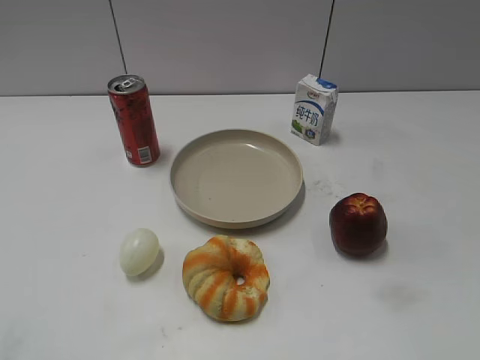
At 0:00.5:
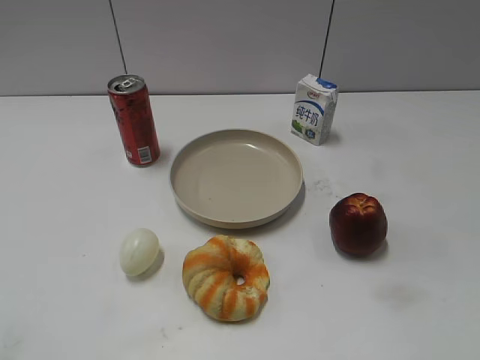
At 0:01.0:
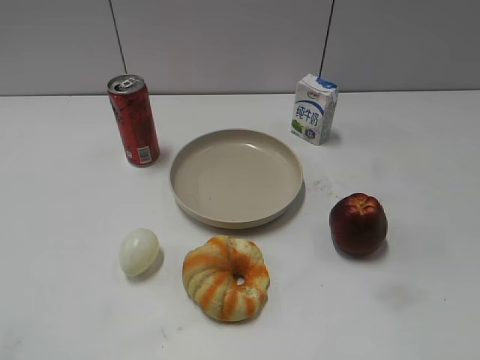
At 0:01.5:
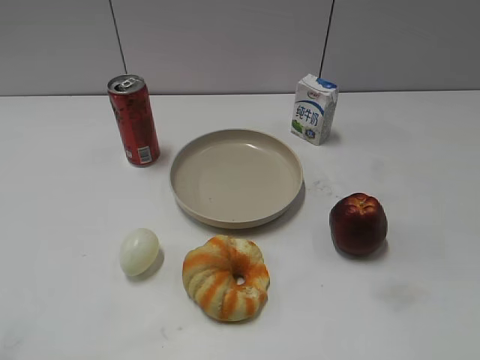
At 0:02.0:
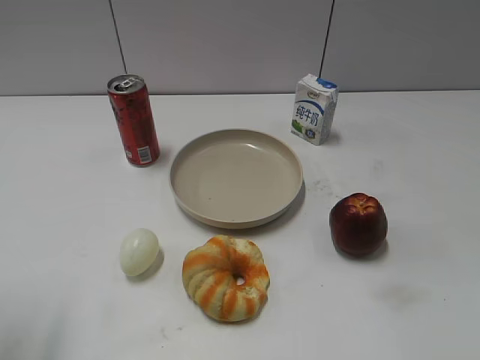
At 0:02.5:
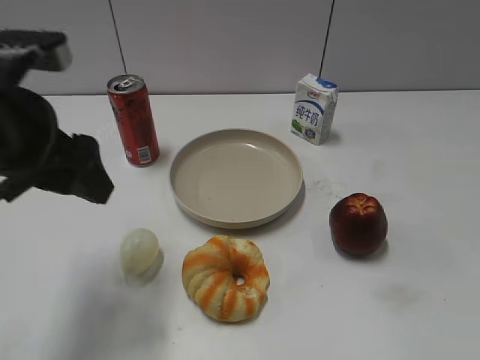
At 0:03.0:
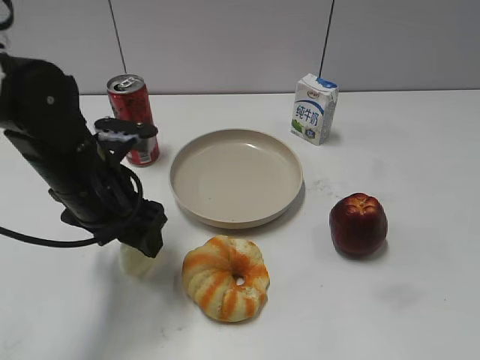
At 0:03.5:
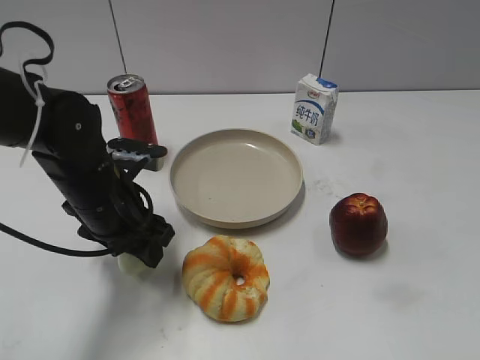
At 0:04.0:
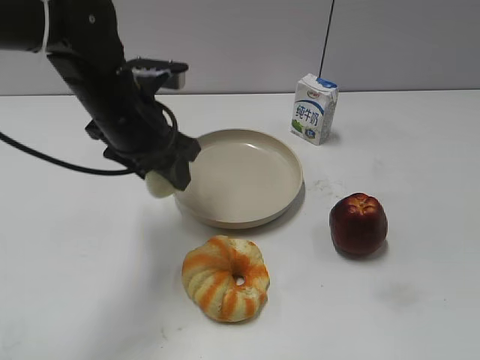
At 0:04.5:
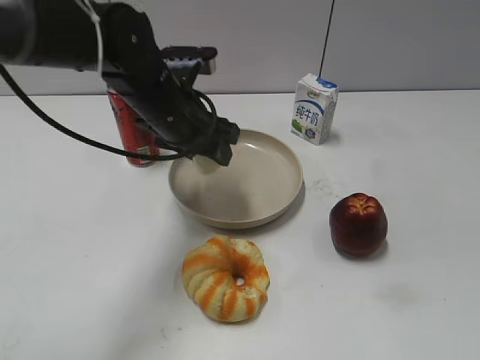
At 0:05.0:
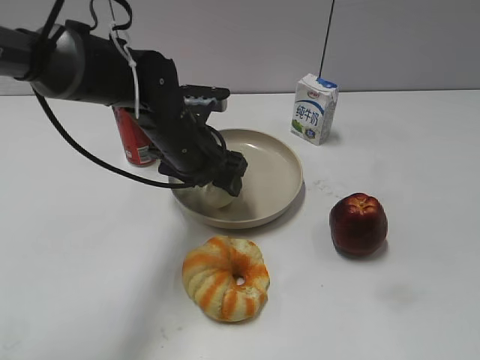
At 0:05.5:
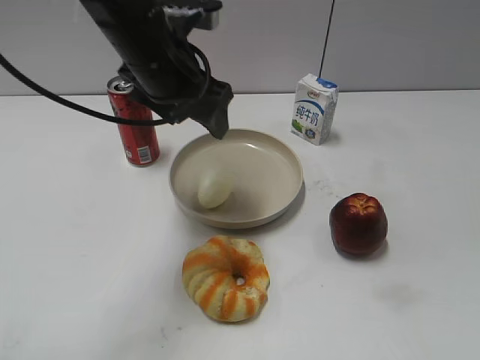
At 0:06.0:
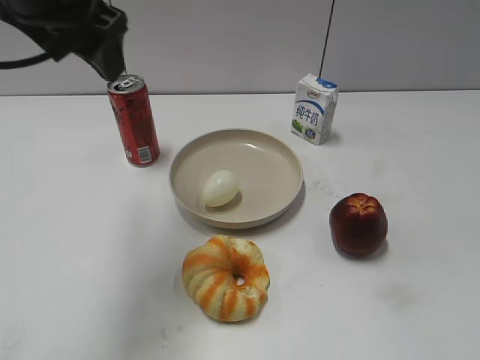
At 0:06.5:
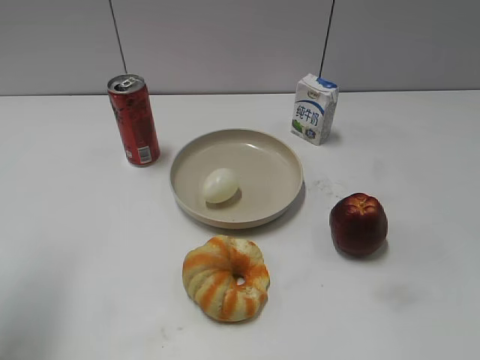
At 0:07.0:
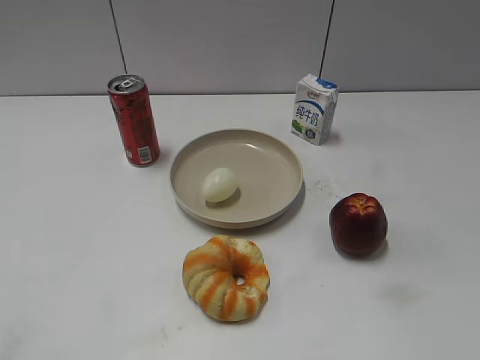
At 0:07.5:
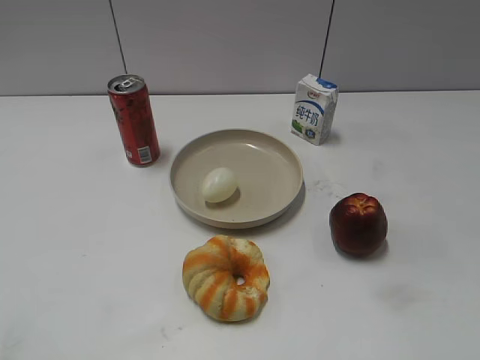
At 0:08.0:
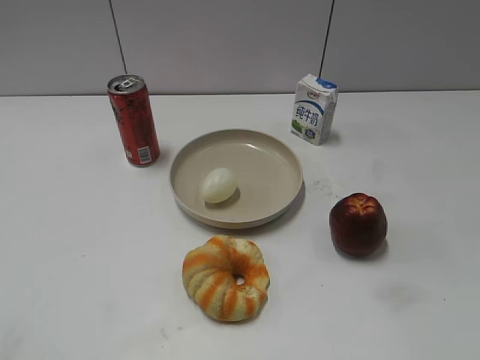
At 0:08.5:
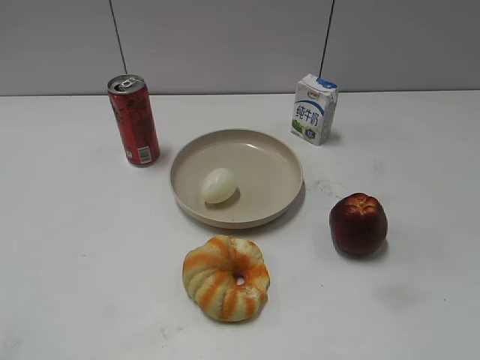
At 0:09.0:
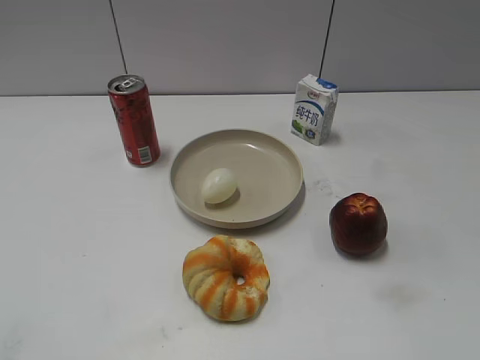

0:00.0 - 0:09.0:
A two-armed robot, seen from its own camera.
Step, 0:01.5 - 0:03.5: Grasp the egg with left gripper.
Step, 0:04.0 - 0:05.0: Place the egg on the plate with left gripper.
0:02.0 - 0:04.5: The left gripper travels to the right, forward and downward by about 35 cm, and closes.
0:04.5 - 0:07.0: The left gripper is displaced backward and to the left by approximately 40 cm, and opens up.

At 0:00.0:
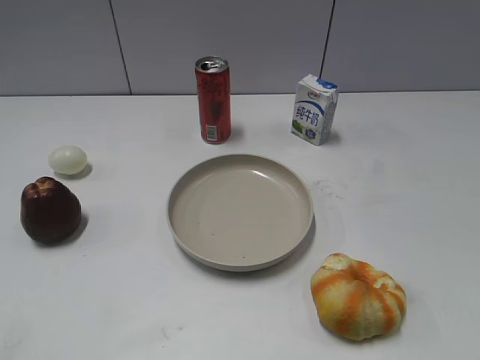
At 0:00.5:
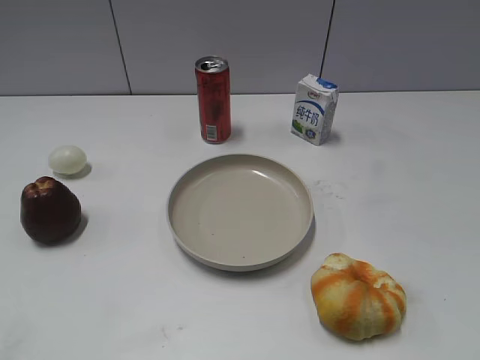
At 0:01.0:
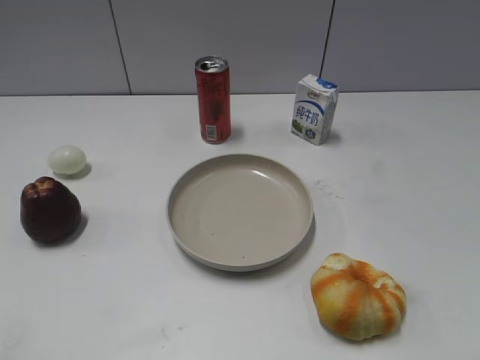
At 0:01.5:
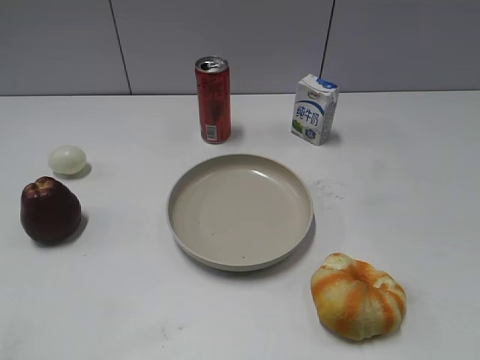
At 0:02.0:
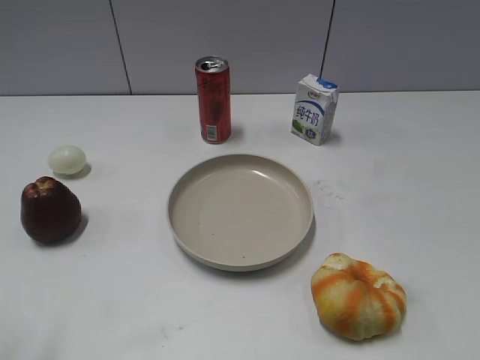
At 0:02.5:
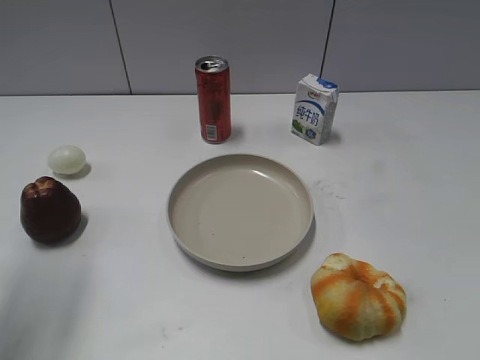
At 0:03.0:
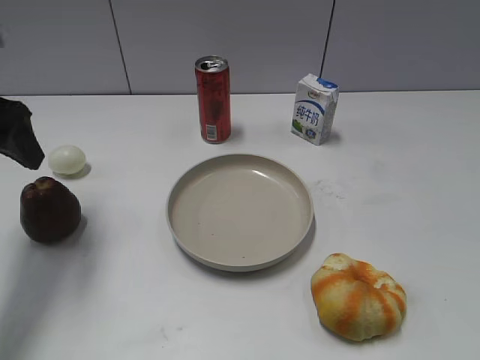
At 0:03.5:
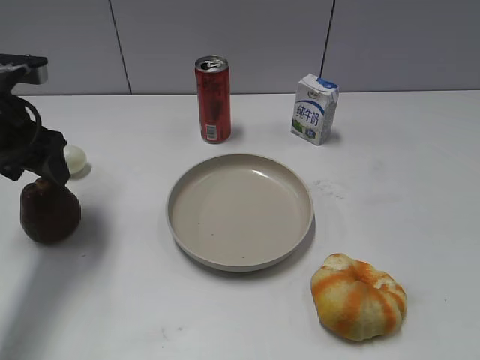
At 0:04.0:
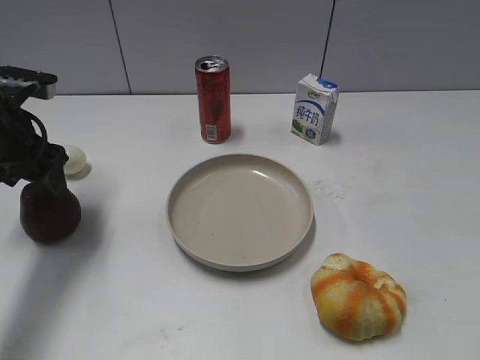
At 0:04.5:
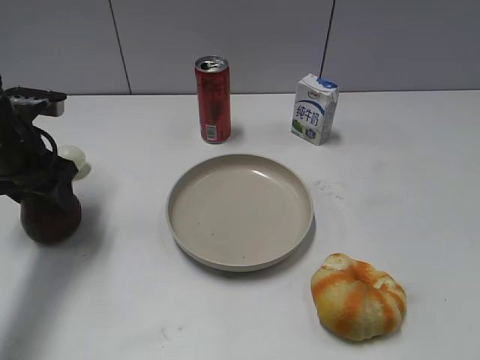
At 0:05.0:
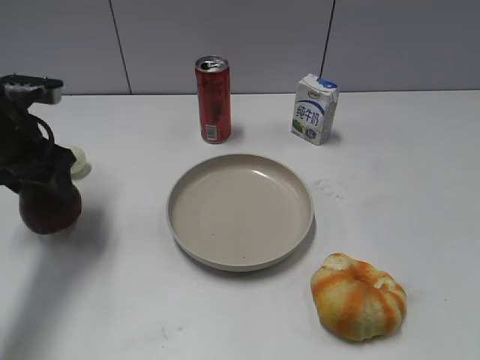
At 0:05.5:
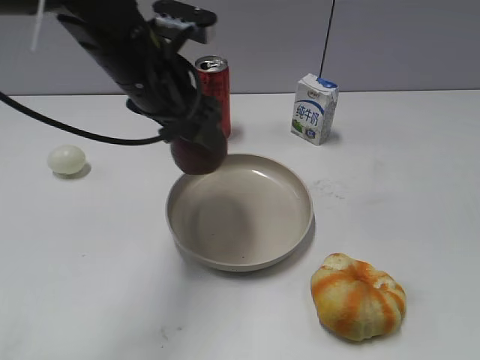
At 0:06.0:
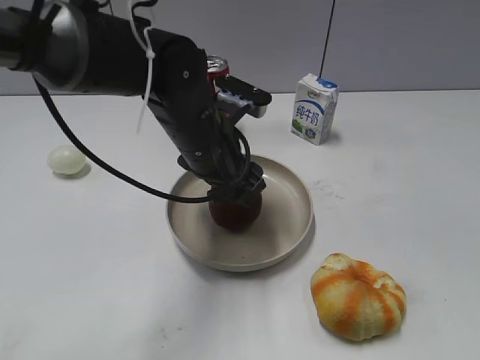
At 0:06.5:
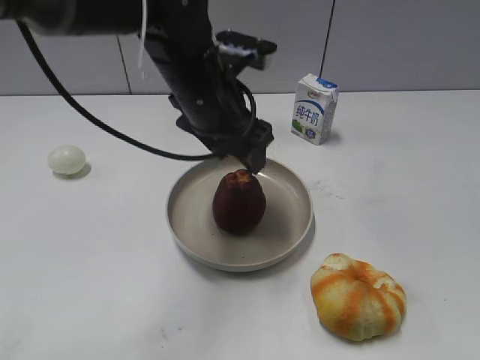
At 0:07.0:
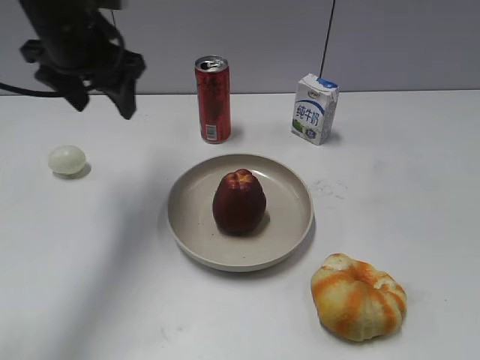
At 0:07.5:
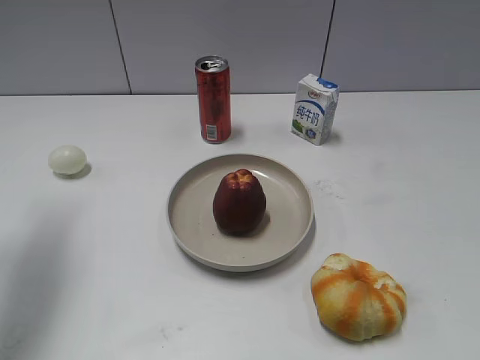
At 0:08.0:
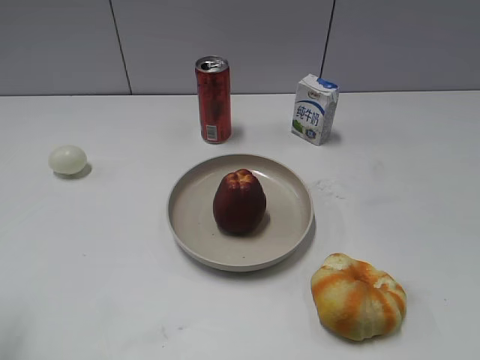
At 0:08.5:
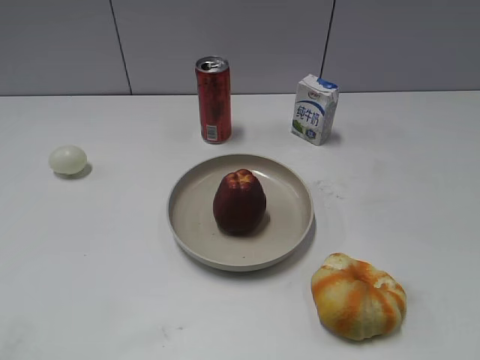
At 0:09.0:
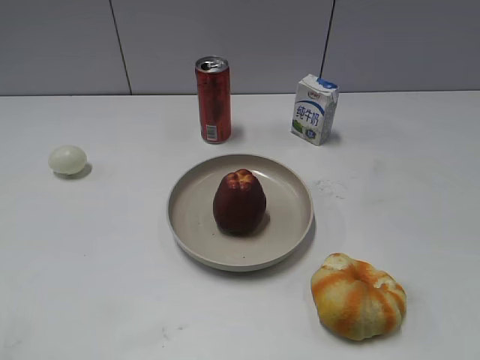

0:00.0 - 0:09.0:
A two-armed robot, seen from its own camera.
Step, 0:03.0 - 0:04.5: Grasp the apple with left gripper.
Step, 0:05.0 - 0:06.5: Place the apple on the plate with left gripper.
0:02.0 - 0:04.5: The left gripper moves forward and downward, about 30 cm.
0:04.5 - 0:07.0: The left gripper moves upward and to the right, approximately 15 cm.
0:07.0 - 0:09.0: The left gripper travels backward and to the left by approximately 40 cm.
